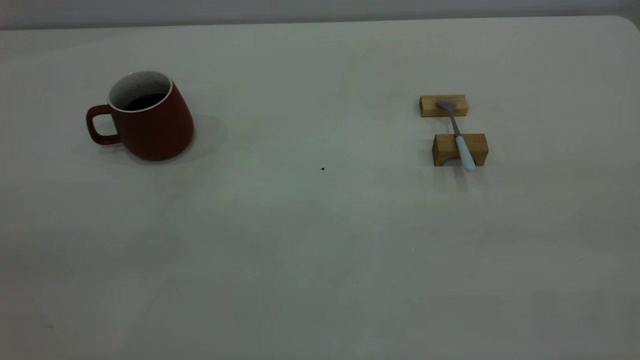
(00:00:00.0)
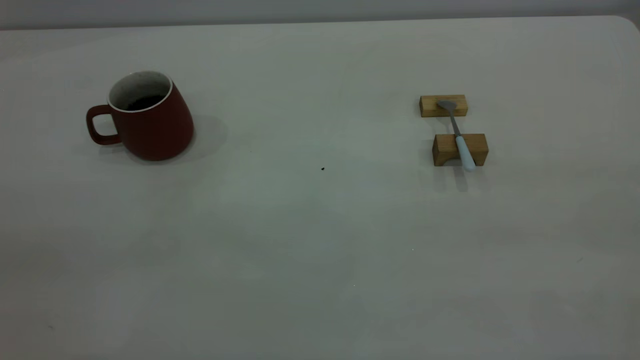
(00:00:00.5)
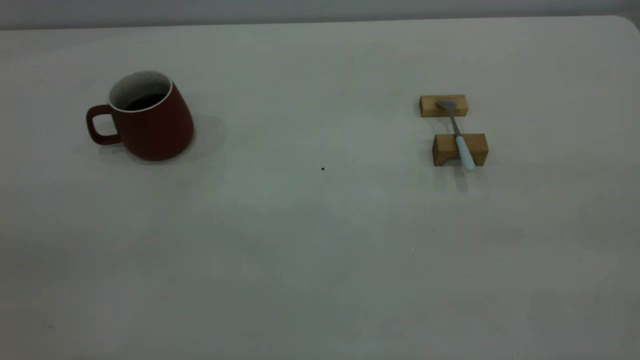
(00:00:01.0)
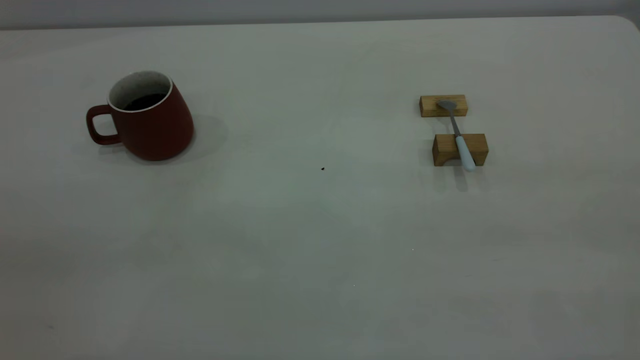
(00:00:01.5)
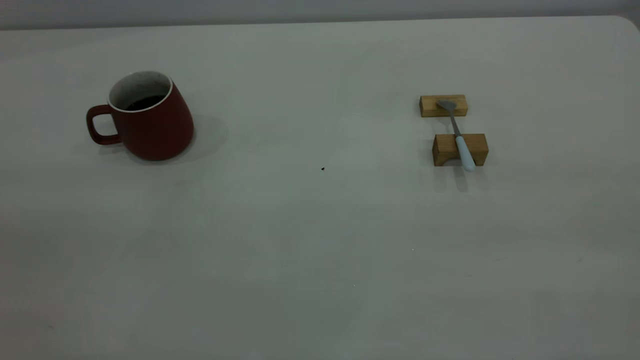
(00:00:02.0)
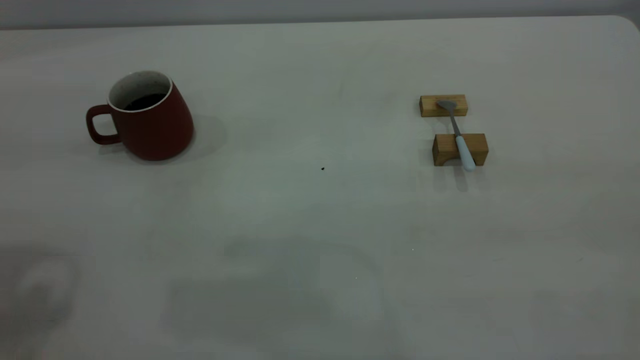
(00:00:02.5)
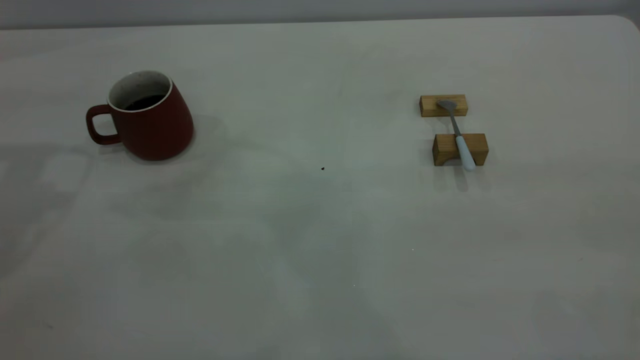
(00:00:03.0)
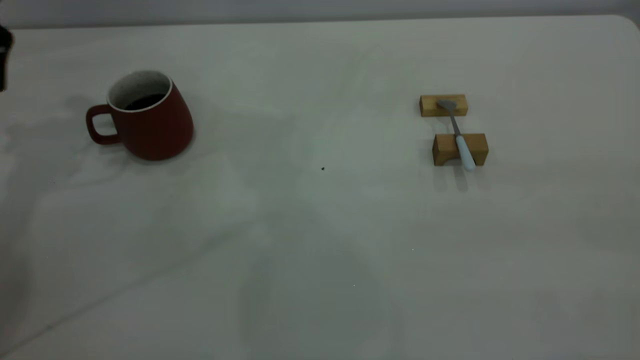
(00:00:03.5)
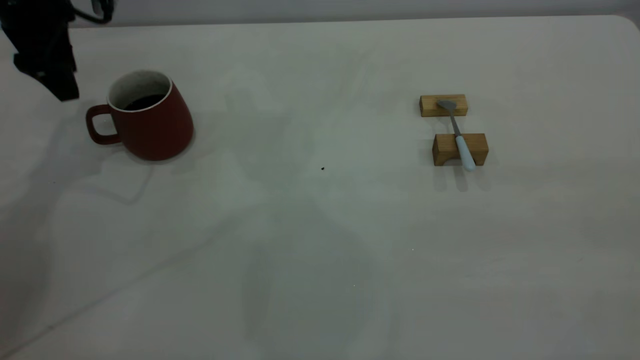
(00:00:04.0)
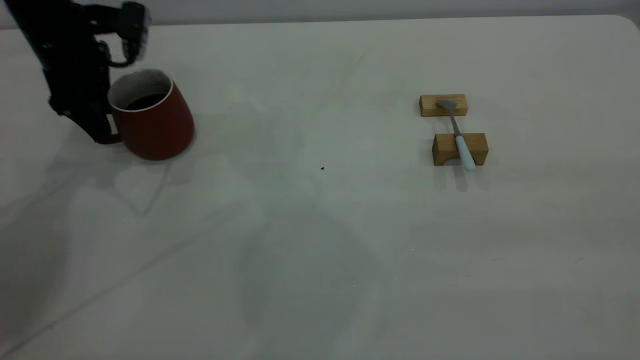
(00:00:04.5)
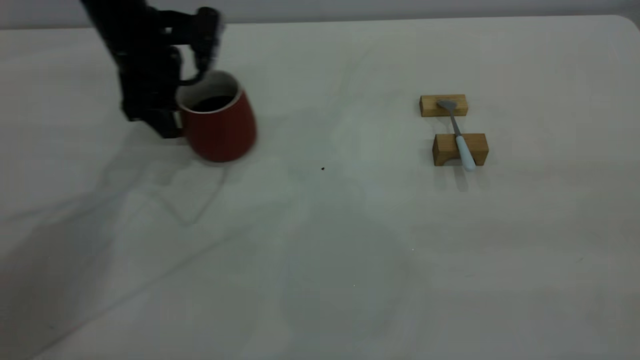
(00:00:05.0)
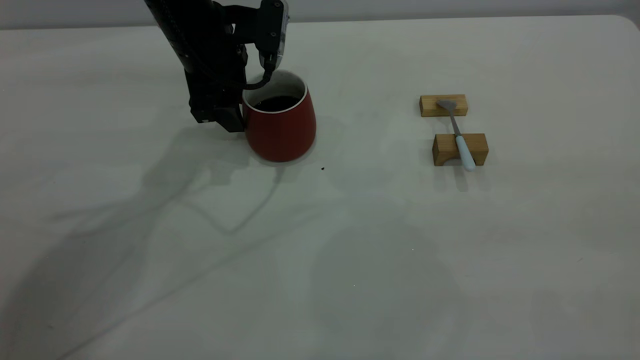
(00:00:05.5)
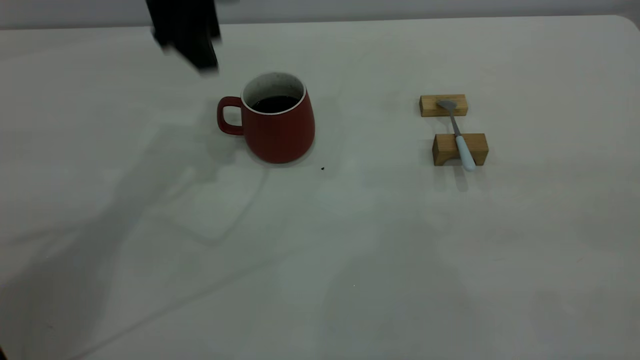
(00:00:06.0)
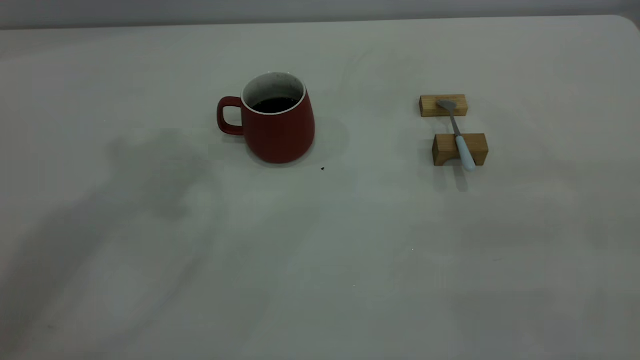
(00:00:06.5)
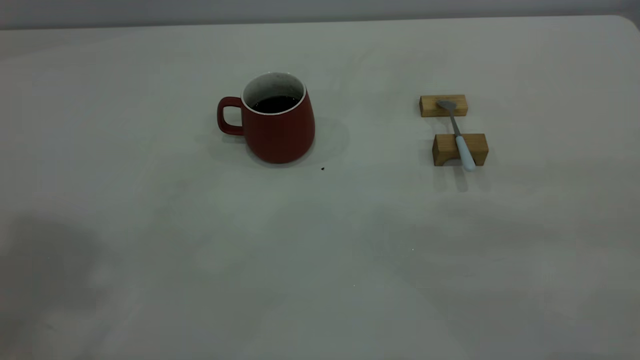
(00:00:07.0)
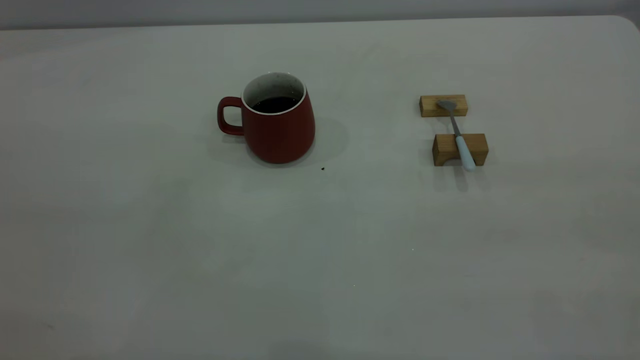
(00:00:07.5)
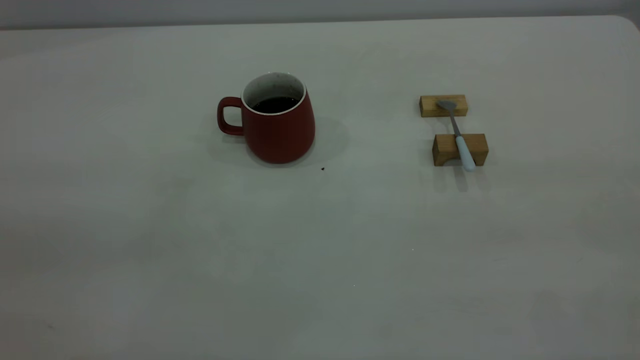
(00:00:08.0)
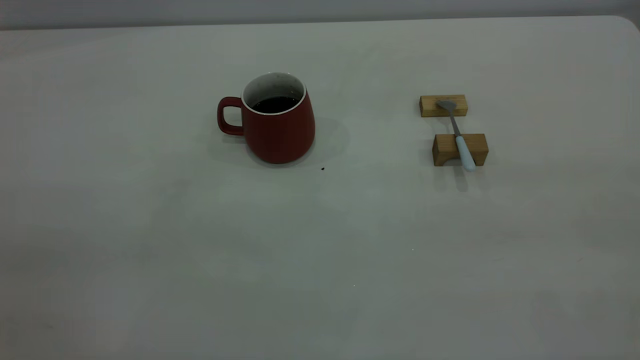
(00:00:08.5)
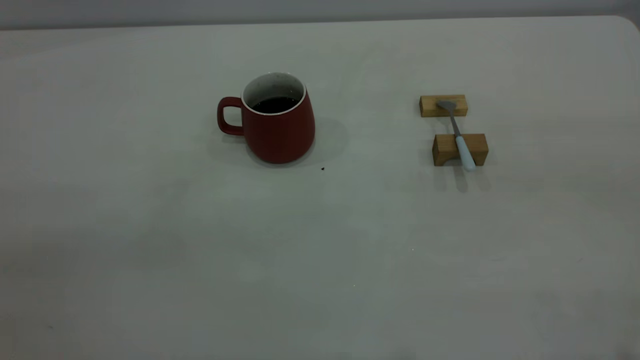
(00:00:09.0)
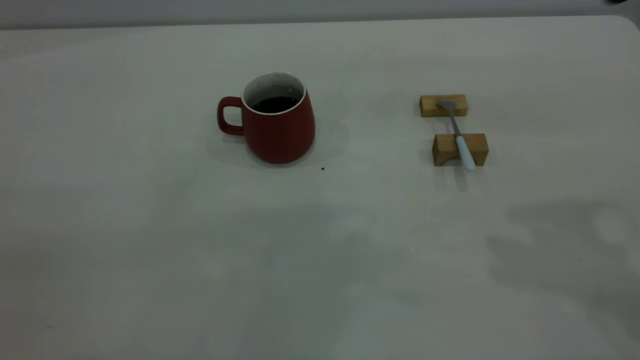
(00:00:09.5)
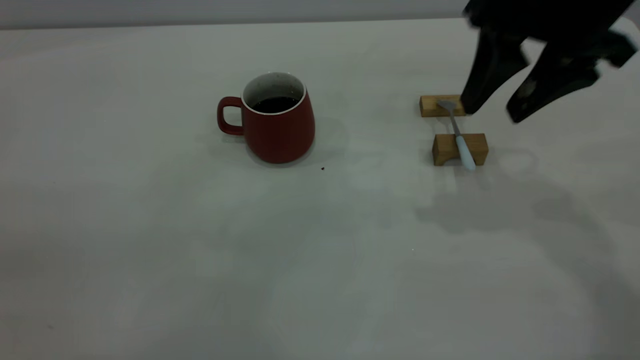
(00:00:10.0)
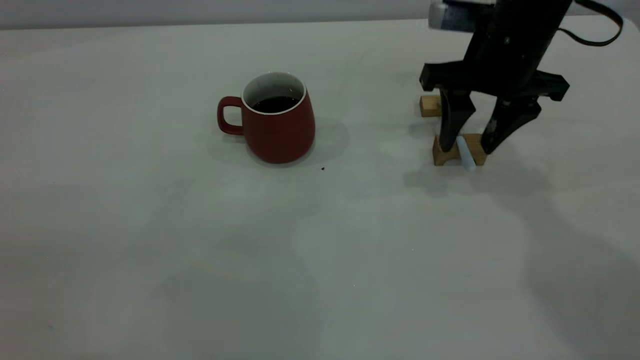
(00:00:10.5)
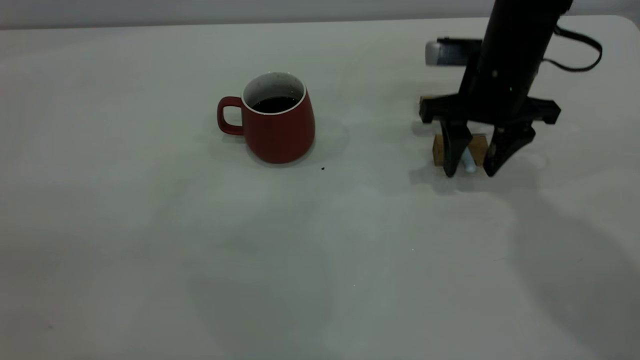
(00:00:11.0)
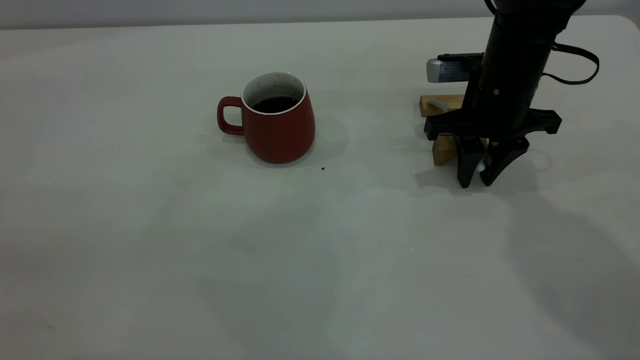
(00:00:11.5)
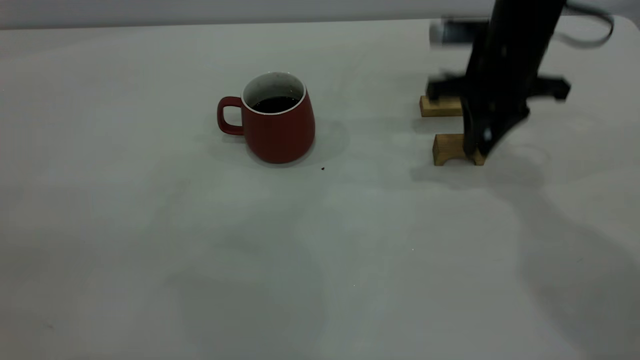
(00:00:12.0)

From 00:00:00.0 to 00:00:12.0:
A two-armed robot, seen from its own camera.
Step, from 00:00:00.0 to 00:00:05.5: Move the cup with coffee to the center of view.
Step, from 00:00:06.0 to 00:00:12.0: Pick up the spoon.
From 00:00:02.0 to 00:00:04.0: The left gripper travels forward and downward by some 50 cm.
From 00:00:04.0 to 00:00:06.0: The left gripper is displaced to the right and upward by roughly 15 cm.
From 00:00:06.0 to 00:00:08.0: The left gripper travels backward by some 40 cm.
From 00:00:08.0 to 00:00:10.0: The right gripper moves forward and downward, about 35 cm, and opens its fingers.
From 00:00:10.0 to 00:00:12.0: The right gripper heads downward and forward, covering approximately 10 cm, and closes up.

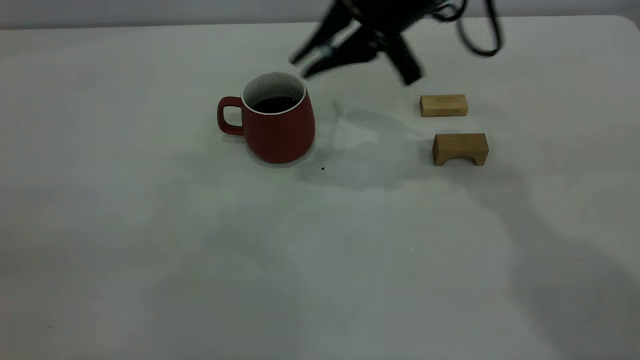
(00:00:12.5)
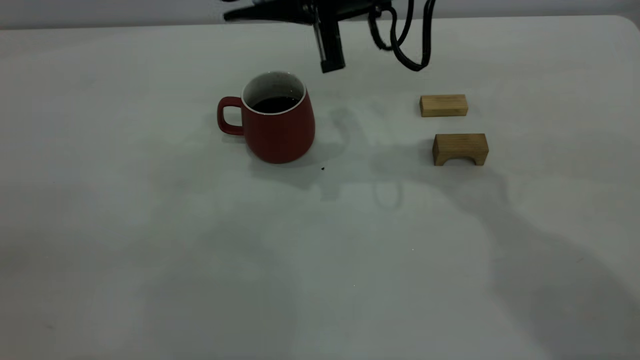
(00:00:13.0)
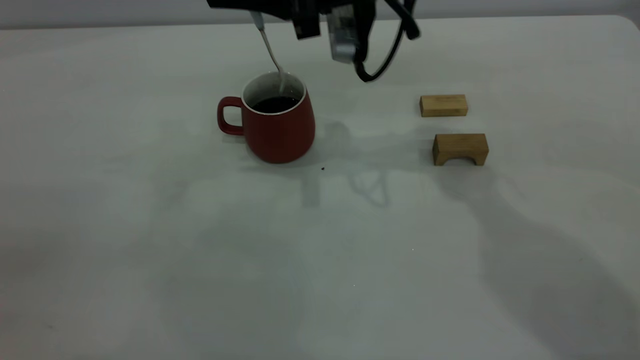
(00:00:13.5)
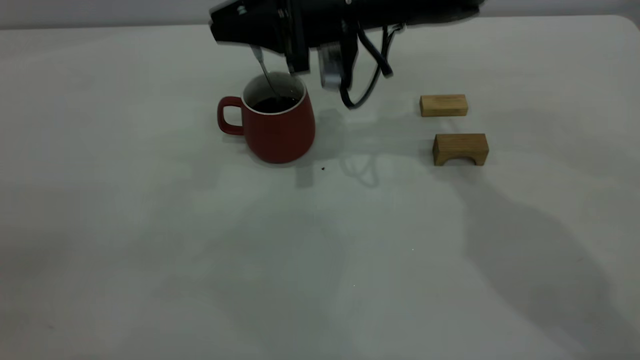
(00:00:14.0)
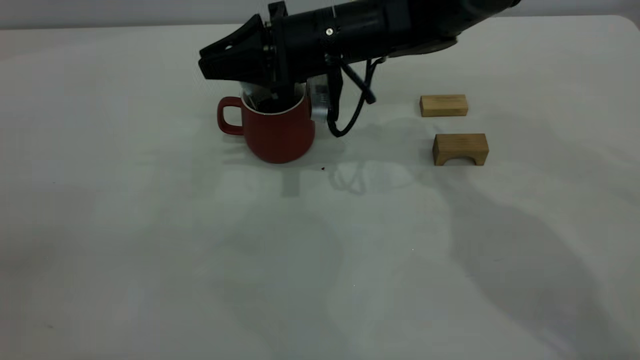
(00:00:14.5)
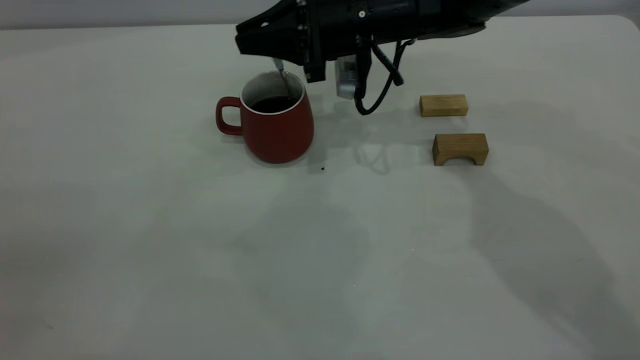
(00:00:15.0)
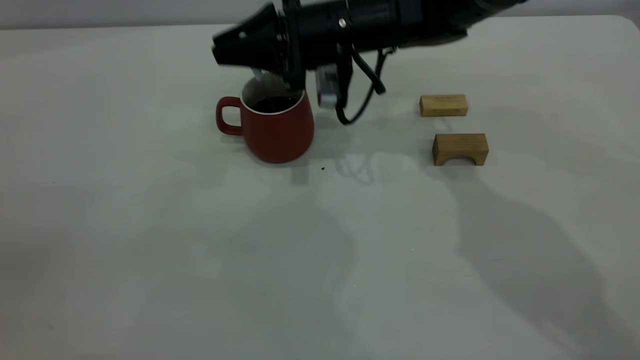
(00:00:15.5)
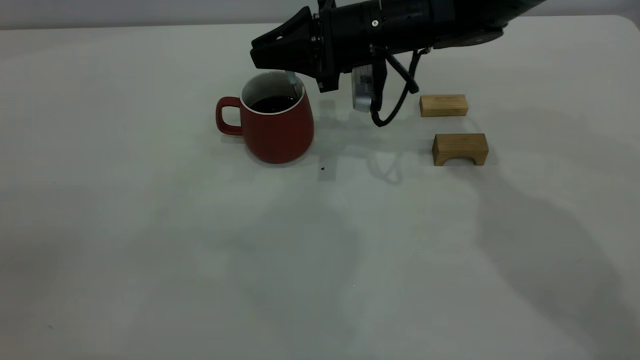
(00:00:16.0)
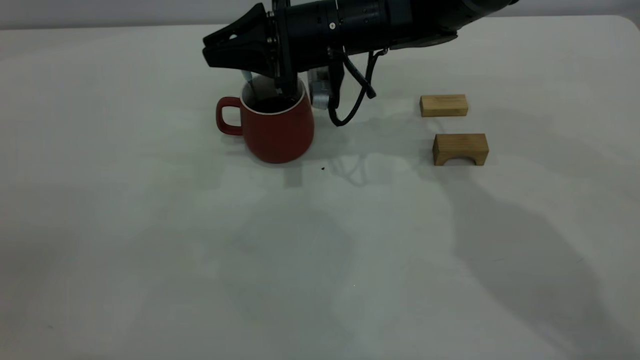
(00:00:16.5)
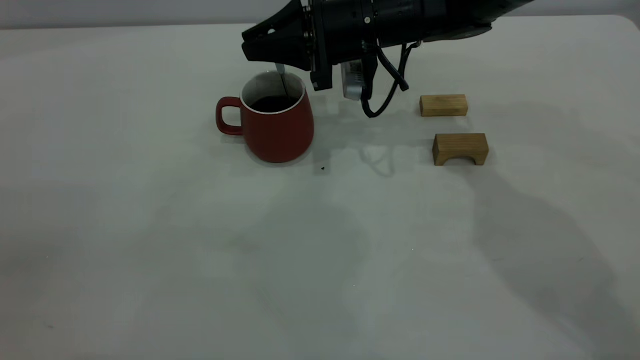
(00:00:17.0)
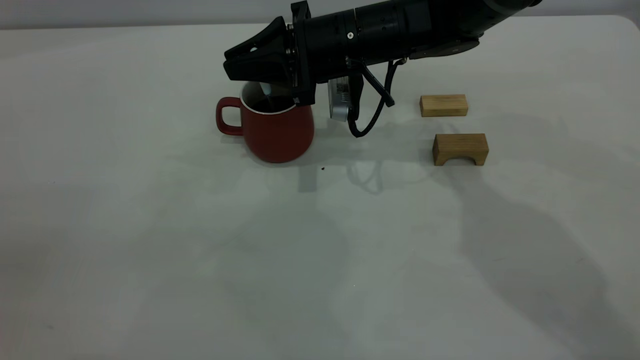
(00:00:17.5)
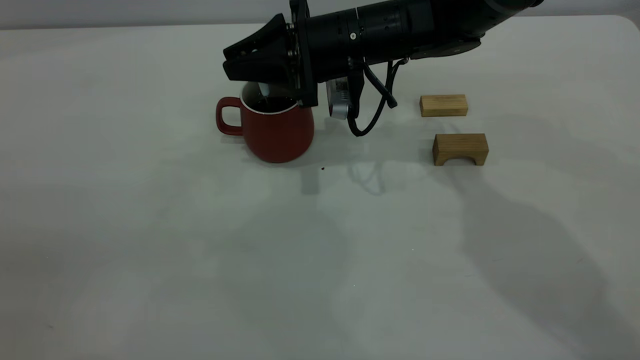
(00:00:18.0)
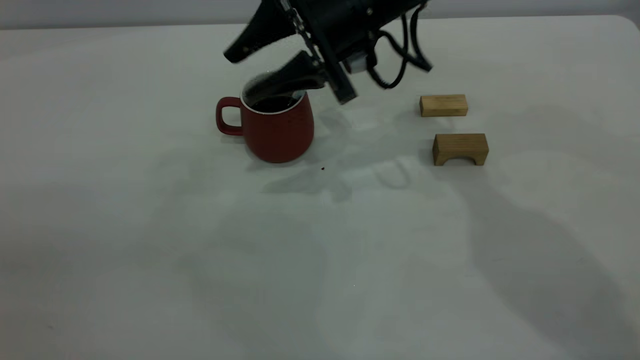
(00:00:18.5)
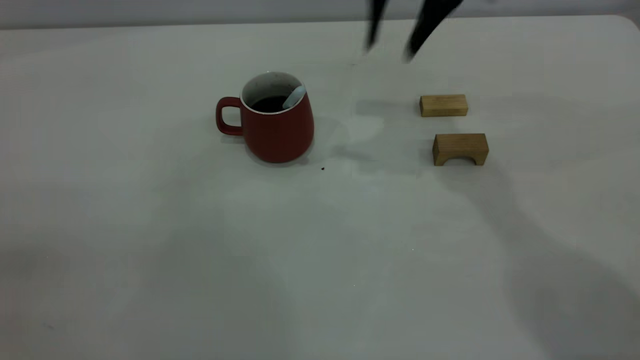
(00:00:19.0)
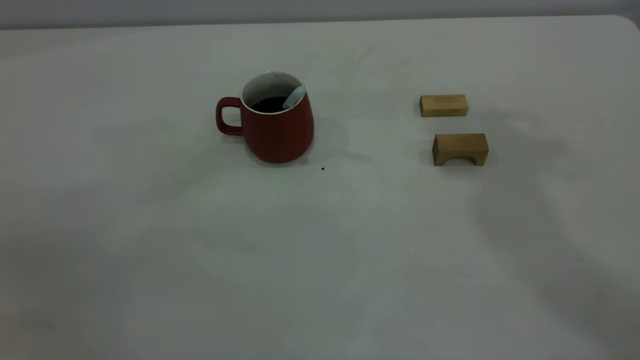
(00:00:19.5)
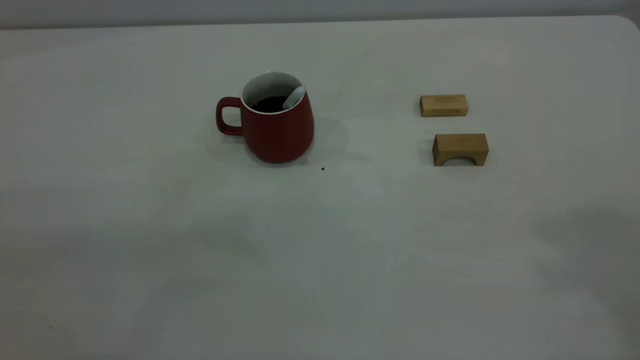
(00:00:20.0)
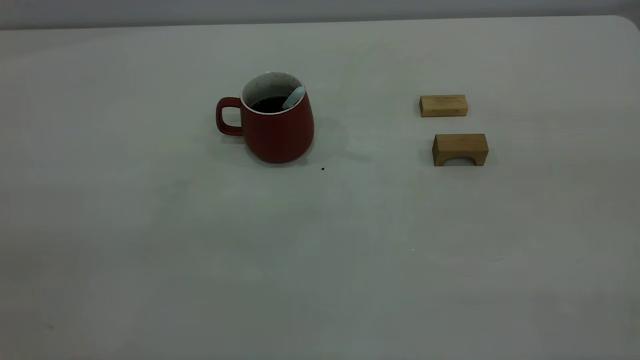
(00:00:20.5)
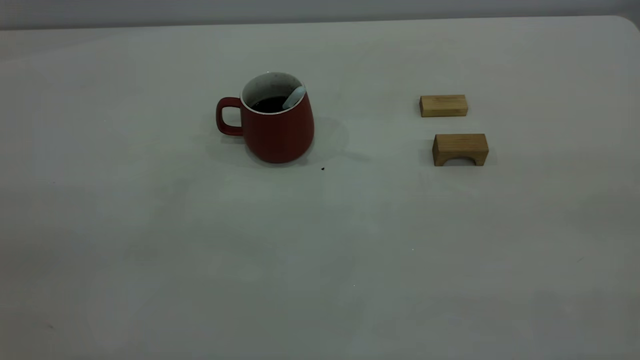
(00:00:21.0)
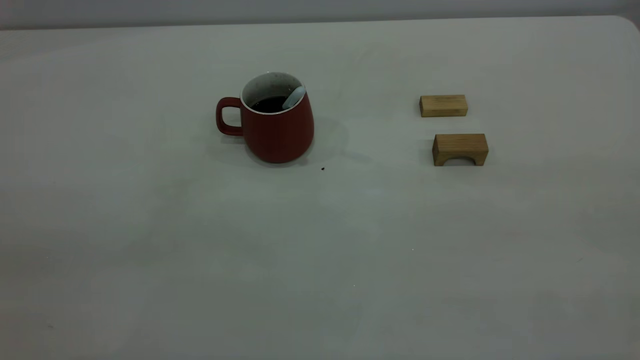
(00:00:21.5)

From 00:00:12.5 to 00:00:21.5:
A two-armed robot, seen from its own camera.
Step, from 00:00:12.5 to 00:00:18.5: Stir the coffee in the cup.
From 00:00:12.5 to 00:00:14.5: The right gripper heads downward and to the left, covering about 10 cm.
From 00:00:14.5 to 00:00:17.0: The grippers make only small movements.
From 00:00:17.0 to 00:00:19.5: The right gripper goes about 40 cm upward, and opens.
